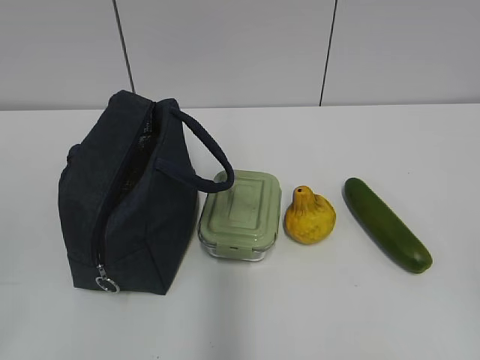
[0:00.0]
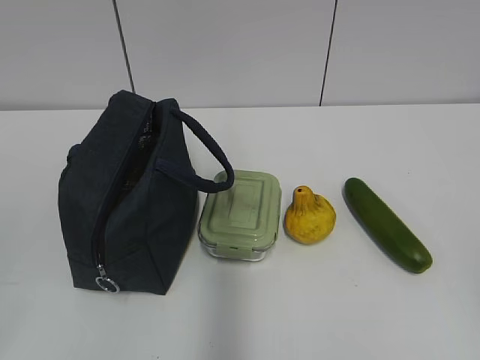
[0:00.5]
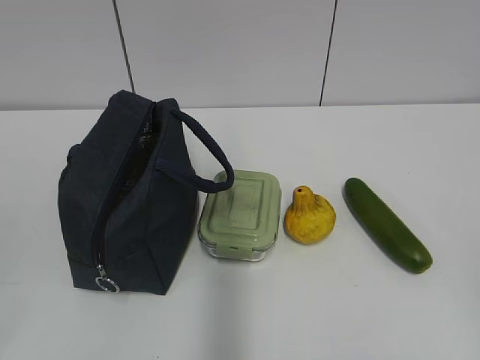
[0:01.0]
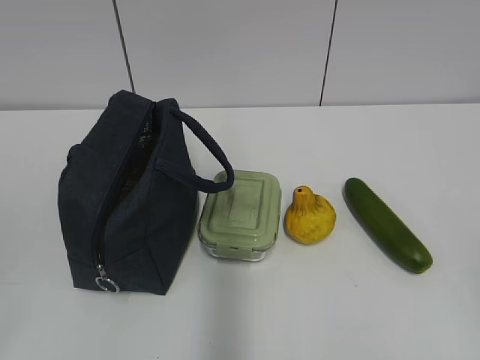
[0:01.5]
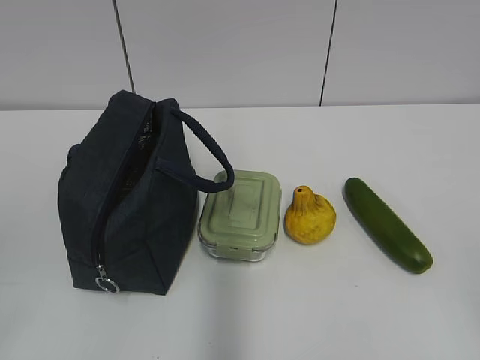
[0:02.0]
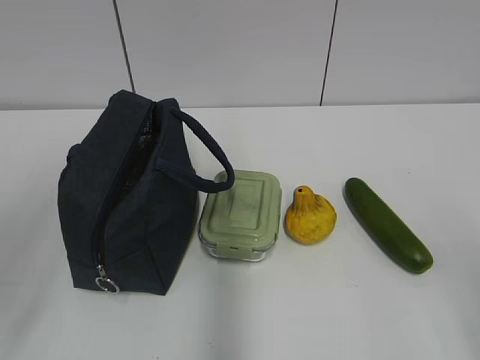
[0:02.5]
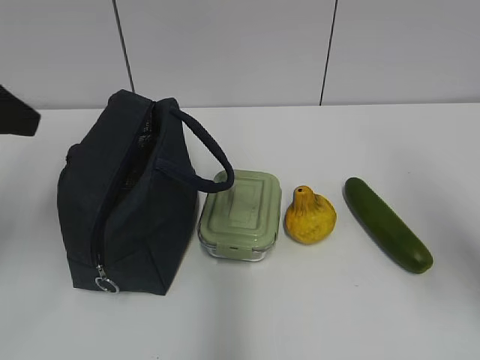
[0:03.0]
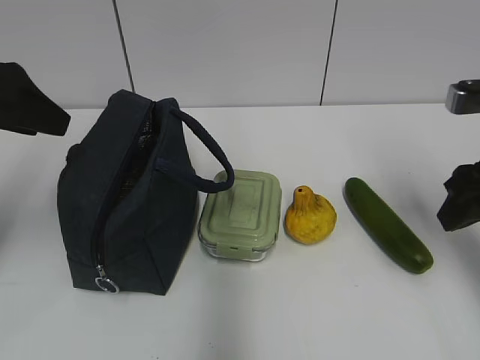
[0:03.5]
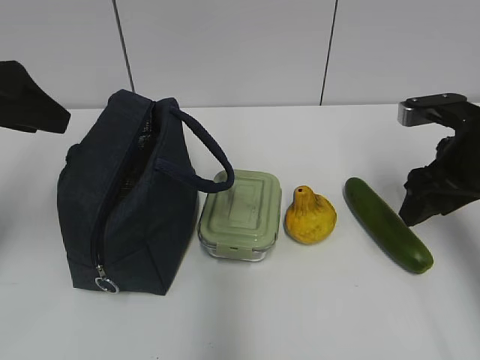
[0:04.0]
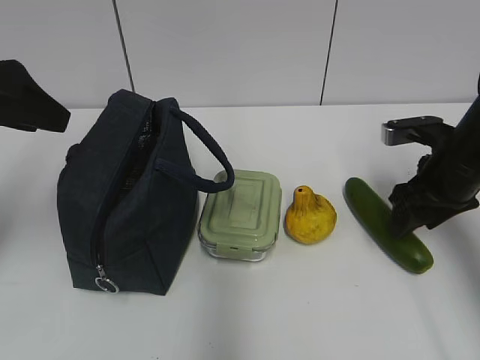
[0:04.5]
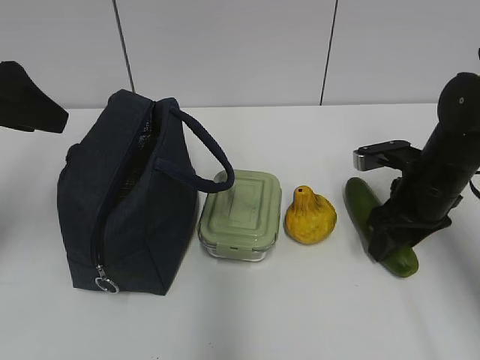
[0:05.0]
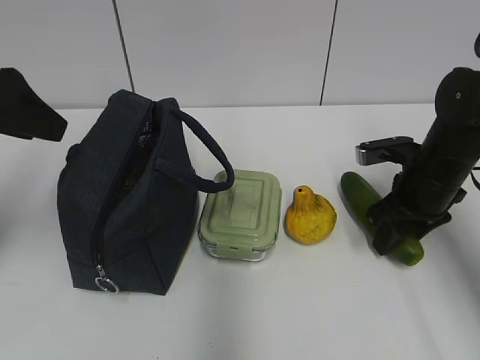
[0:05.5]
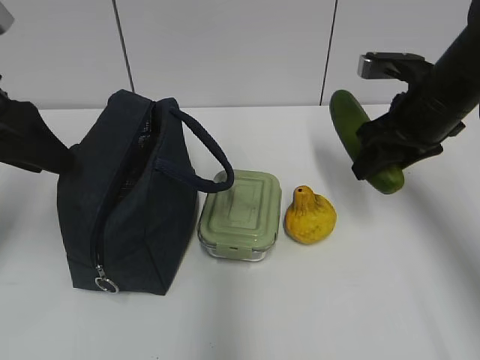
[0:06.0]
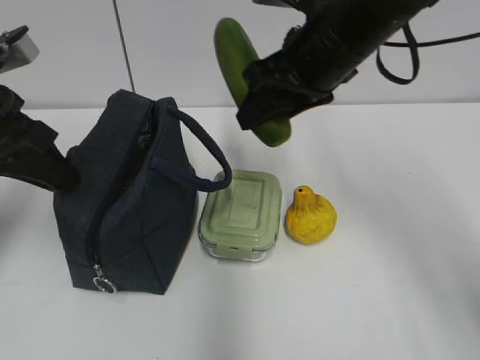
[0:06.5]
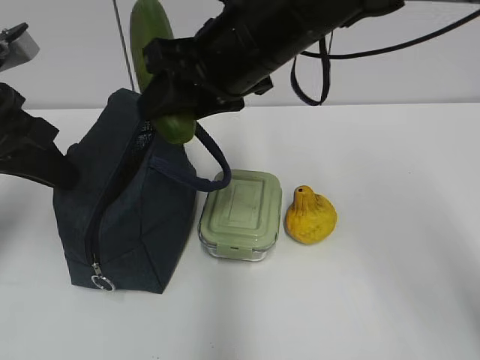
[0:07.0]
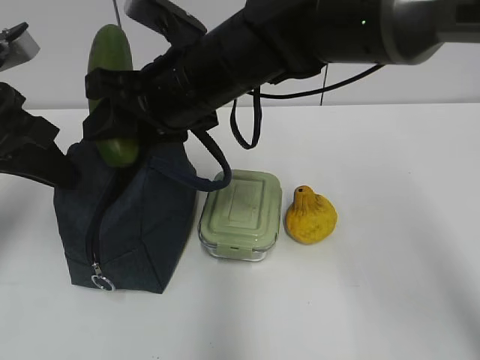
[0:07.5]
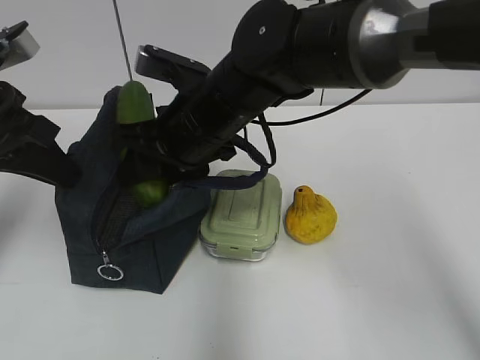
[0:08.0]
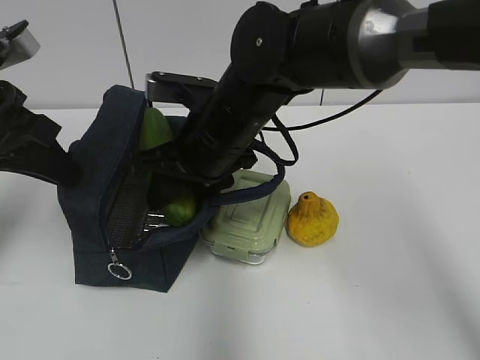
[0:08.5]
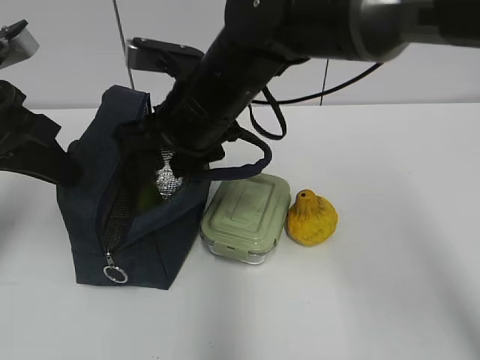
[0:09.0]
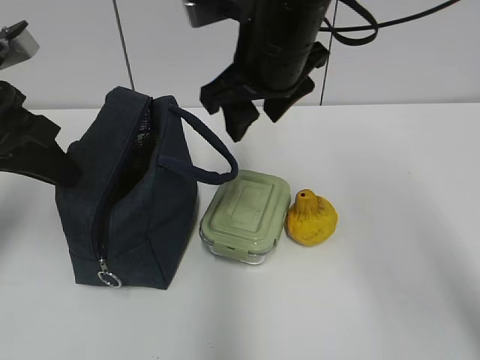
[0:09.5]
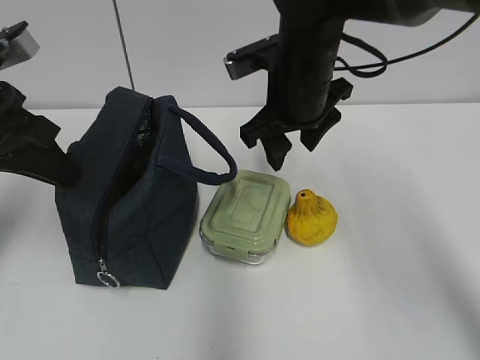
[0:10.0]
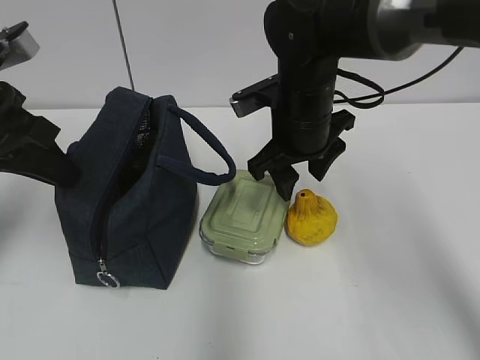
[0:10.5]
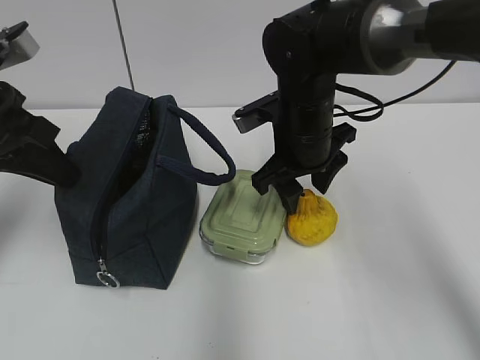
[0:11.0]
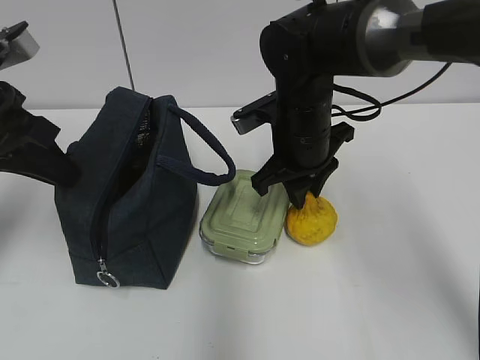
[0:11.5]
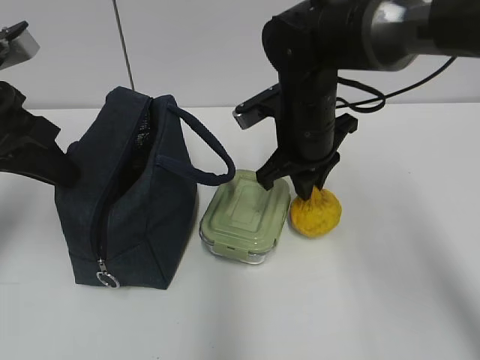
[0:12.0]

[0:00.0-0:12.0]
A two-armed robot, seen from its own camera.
0:02.0 to 0:04.0: The two grippers go approximately 30 cm forward.
0:04.0 to 0:06.0: The right gripper reaches about 5 cm downward, then returns.
0:06.0 to 0:08.0: The left gripper closes up; the right gripper moves to the left, approximately 25 cm.
0:08.0 to 0:10.0: The right gripper heads to the right, covering some 10 cm.
0:10.0 to 0:12.0: The right gripper is displaced downward by roughly 5 cm, and closes up.

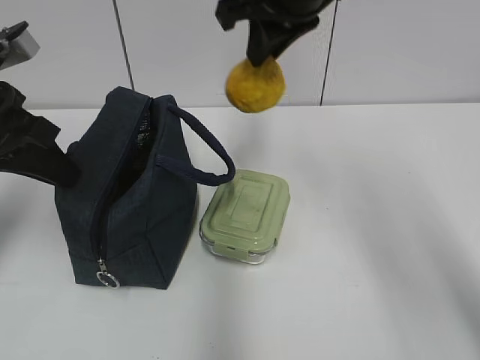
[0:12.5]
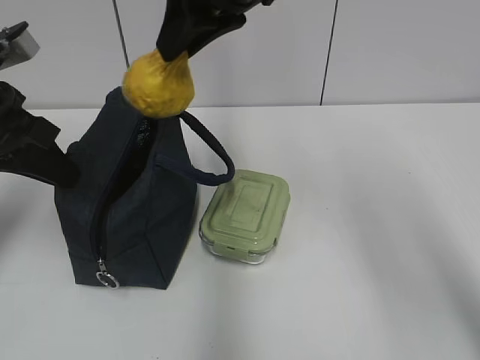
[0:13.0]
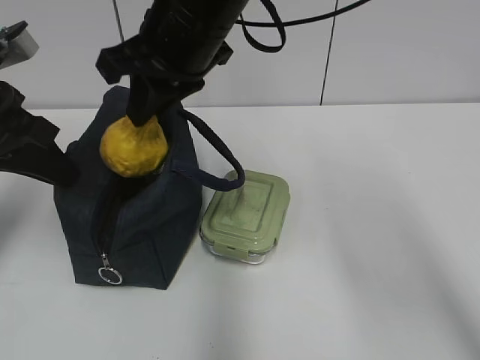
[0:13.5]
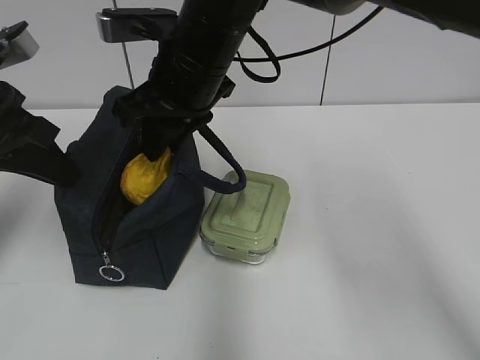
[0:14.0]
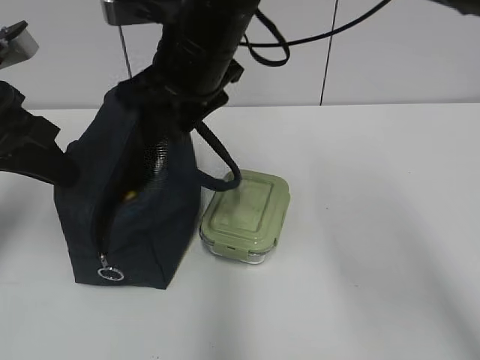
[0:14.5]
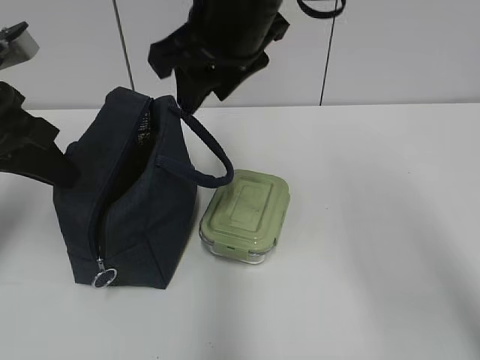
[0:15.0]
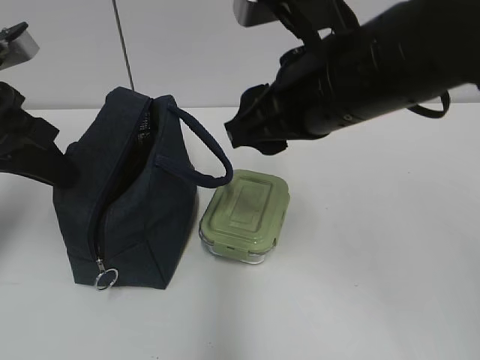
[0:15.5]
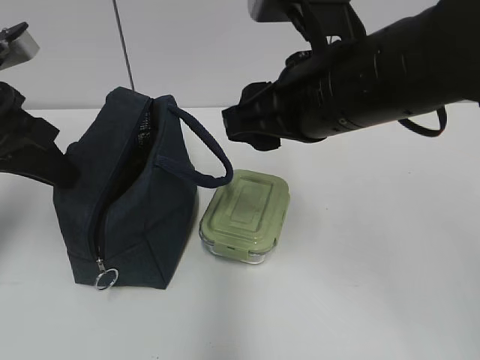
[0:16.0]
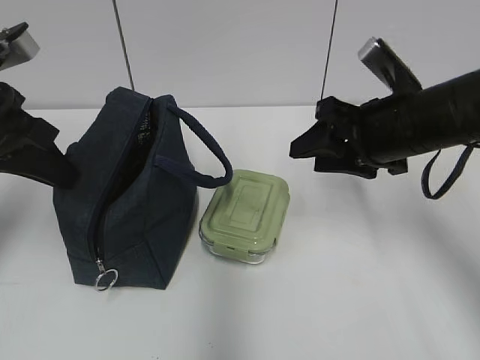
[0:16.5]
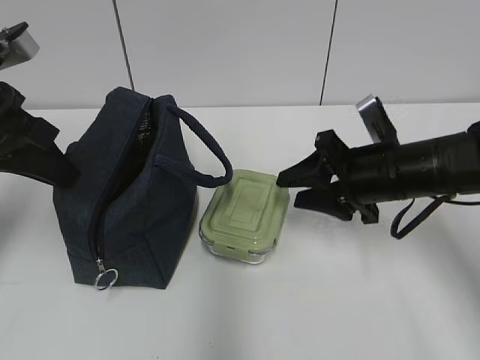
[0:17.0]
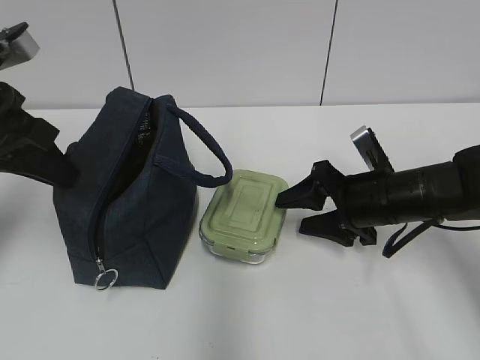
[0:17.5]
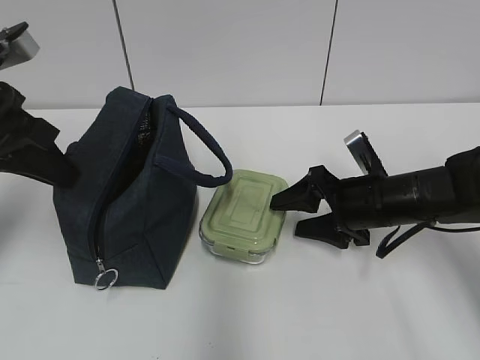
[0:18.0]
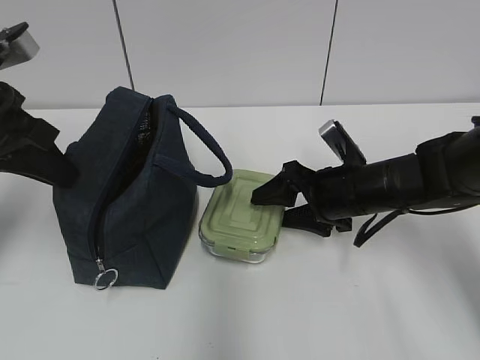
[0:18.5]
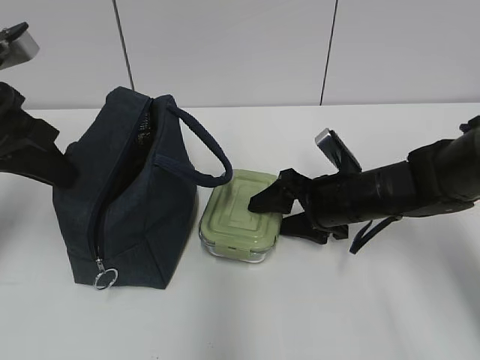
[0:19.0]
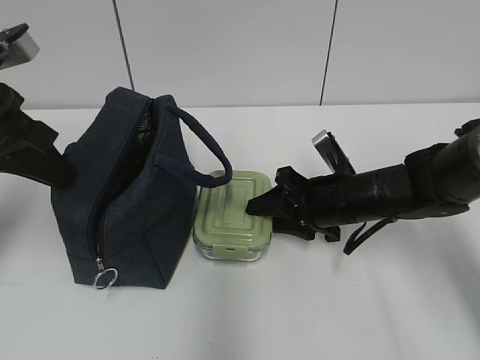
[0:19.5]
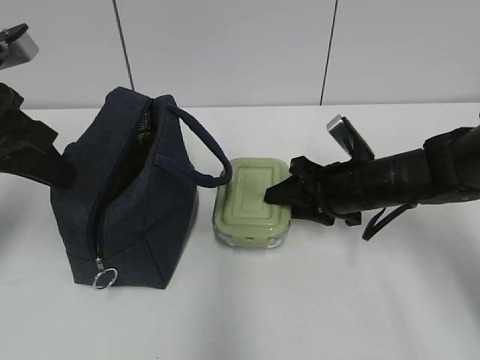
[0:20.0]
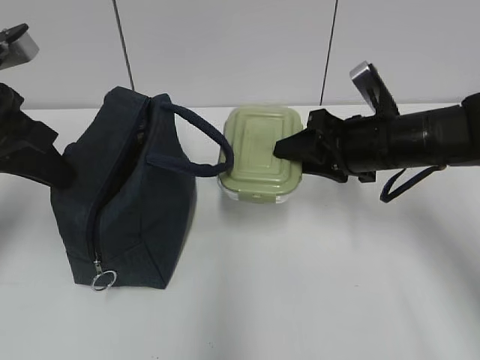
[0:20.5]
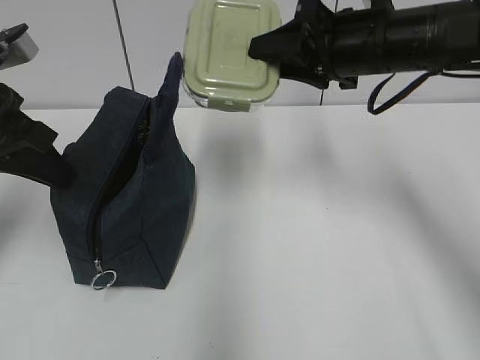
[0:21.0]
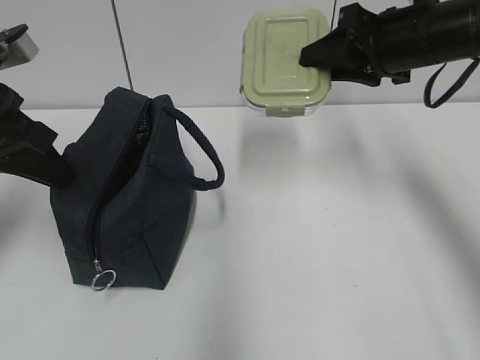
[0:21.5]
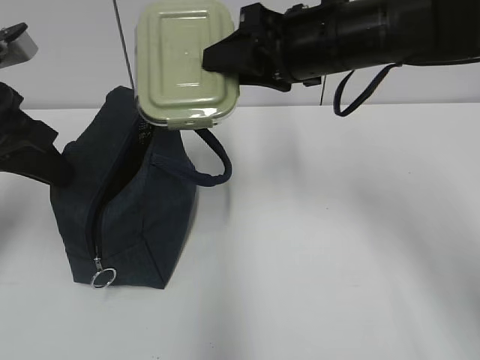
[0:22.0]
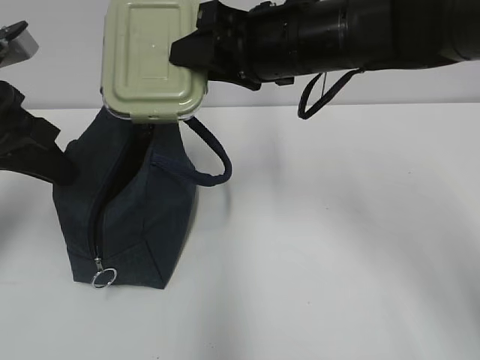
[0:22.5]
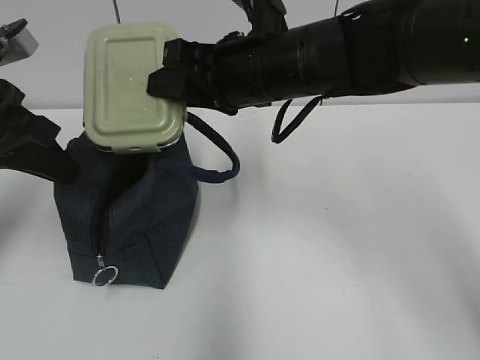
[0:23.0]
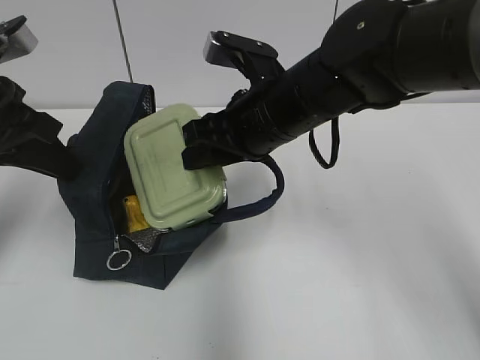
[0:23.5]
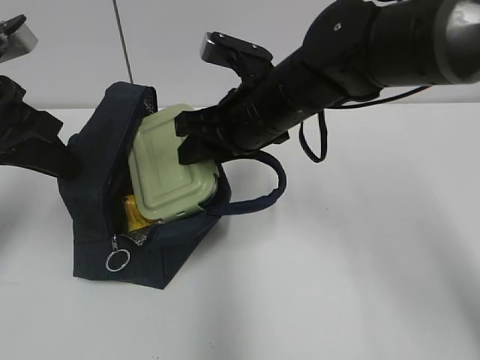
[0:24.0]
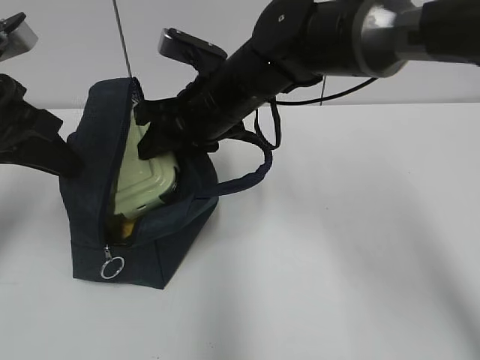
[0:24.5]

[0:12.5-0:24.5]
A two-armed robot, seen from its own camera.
0:12.5 to 0:14.5: The right gripper heads to the left and downward, covering roughly 10 cm, and opens its fingers.
0:14.5 to 0:16.5: The right gripper is displaced to the right by about 20 cm.
0:16.5 to 0:18.5: The right gripper goes about 10 cm downward.
0:18.5 to 0:20.5: The right gripper shifts about 5 cm upward, and closes.
0:20.5 to 0:22.5: The right gripper heads upward and to the left, covering approximately 15 cm.
0:22.5 to 0:24.5: The right gripper shifts roughly 10 cm to the left and downward.

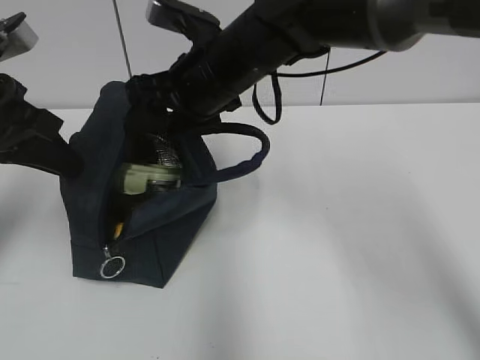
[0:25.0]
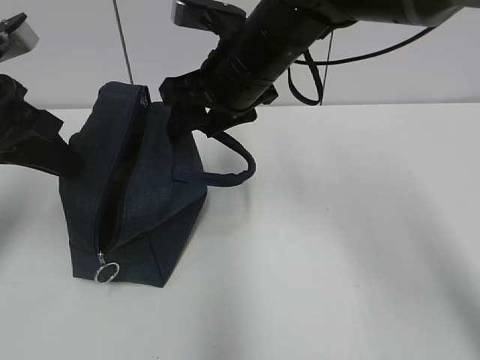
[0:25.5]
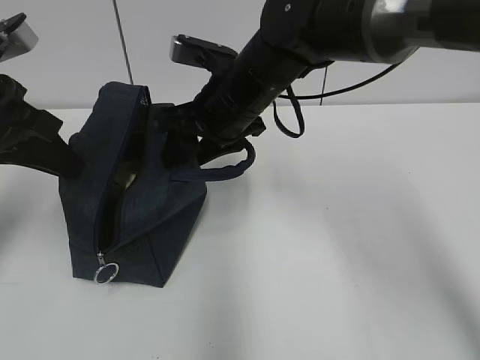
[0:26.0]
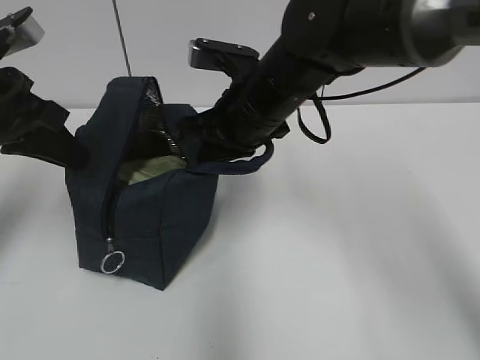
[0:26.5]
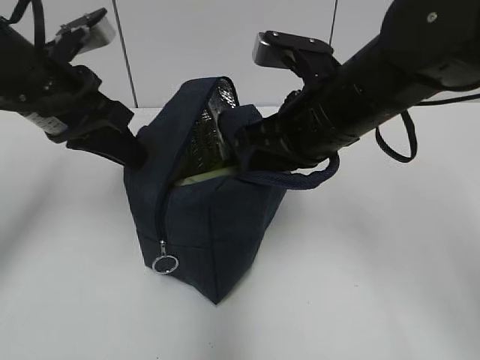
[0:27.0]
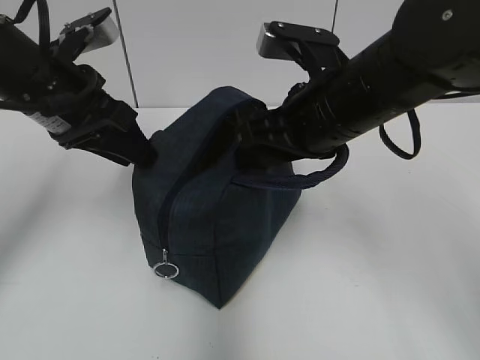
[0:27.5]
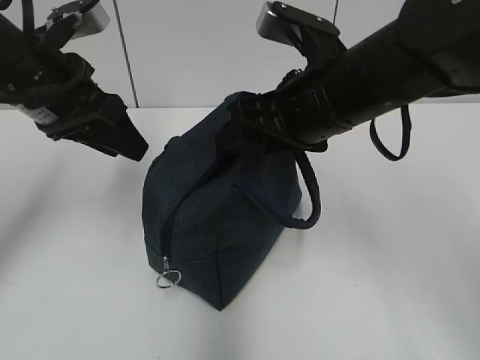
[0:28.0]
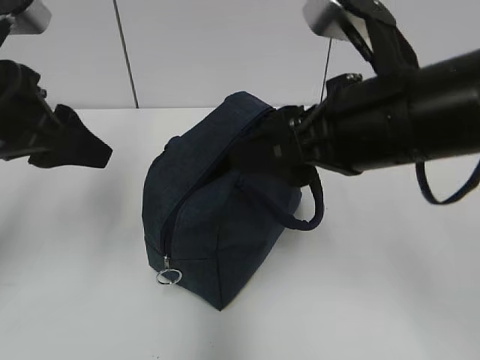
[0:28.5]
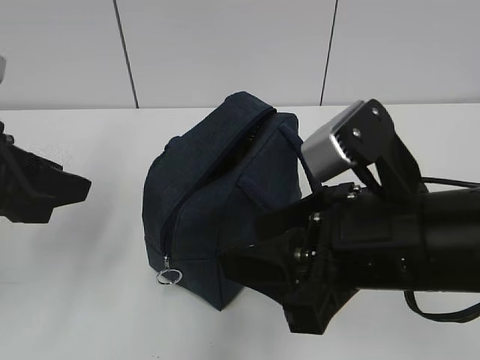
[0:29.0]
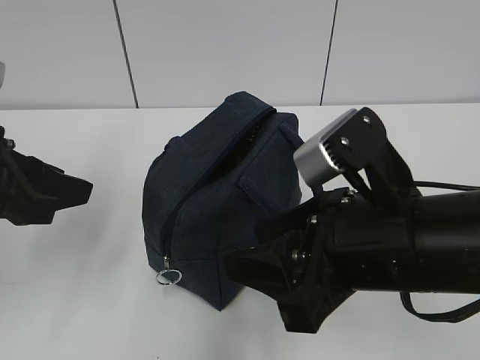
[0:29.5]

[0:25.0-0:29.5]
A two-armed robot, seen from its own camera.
0:25.0 to 0:27.0: The right gripper is displaced to the right and backward by about 10 cm, and closes up; the left gripper heads to the right, covering some 5 cm.
0:27.0 to 0:29.5: Both grippers move backward, approximately 10 cm. The left gripper opens. The right gripper opens its fingers.
